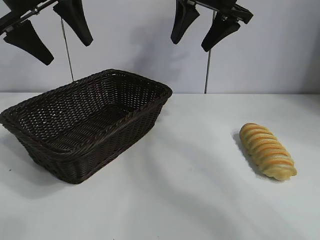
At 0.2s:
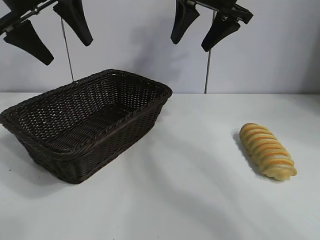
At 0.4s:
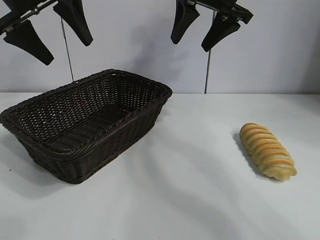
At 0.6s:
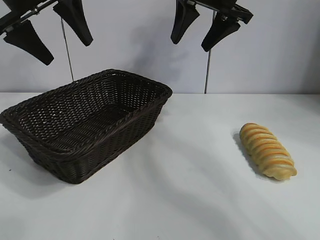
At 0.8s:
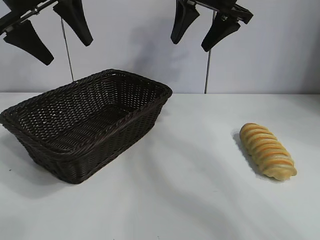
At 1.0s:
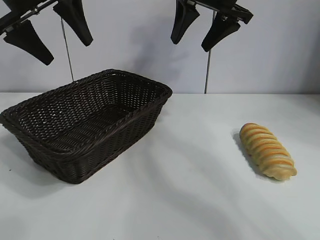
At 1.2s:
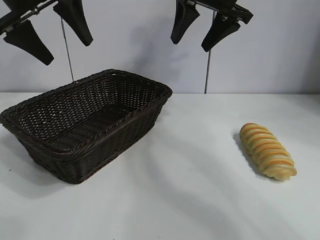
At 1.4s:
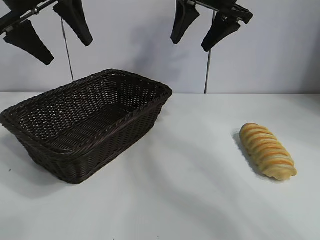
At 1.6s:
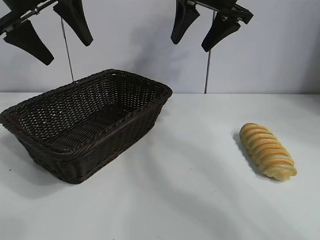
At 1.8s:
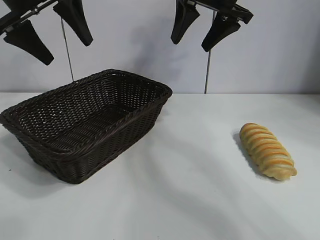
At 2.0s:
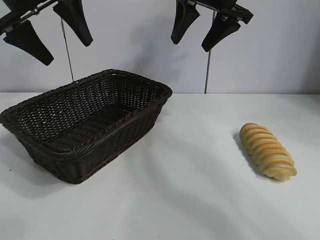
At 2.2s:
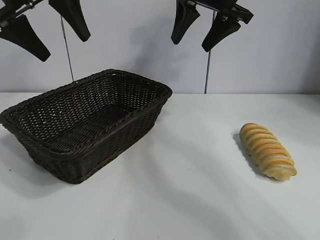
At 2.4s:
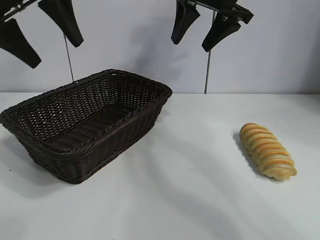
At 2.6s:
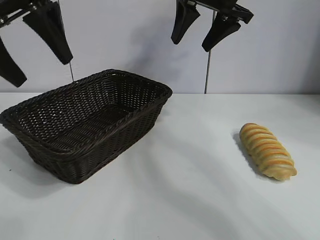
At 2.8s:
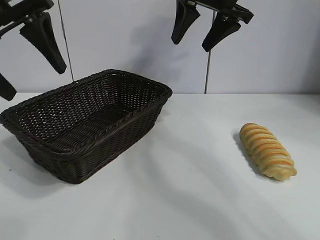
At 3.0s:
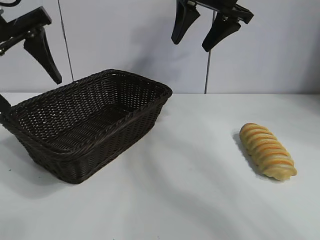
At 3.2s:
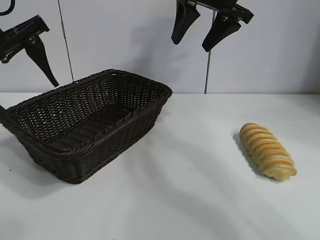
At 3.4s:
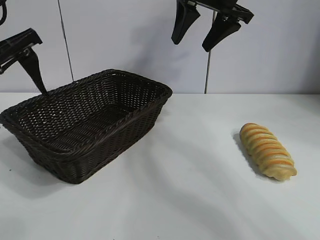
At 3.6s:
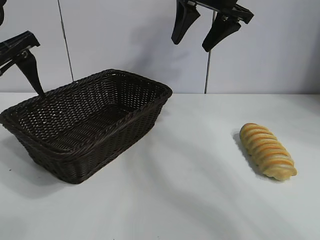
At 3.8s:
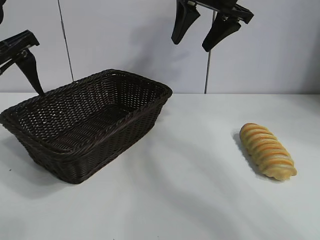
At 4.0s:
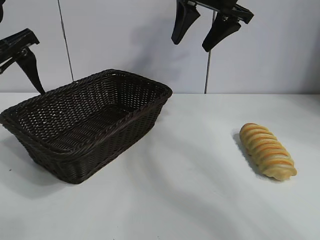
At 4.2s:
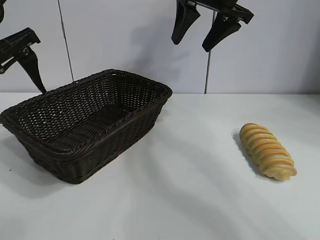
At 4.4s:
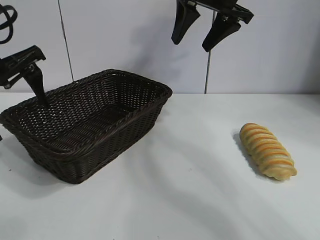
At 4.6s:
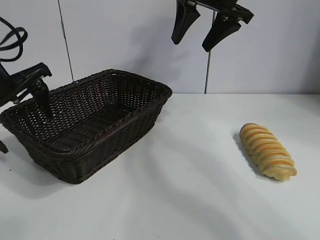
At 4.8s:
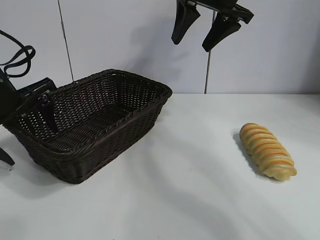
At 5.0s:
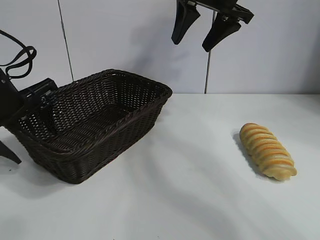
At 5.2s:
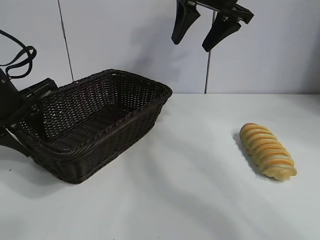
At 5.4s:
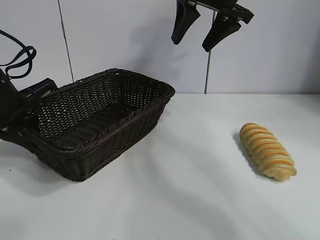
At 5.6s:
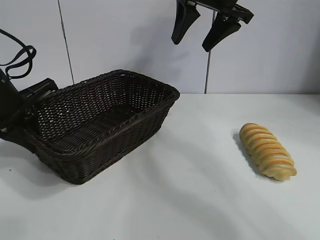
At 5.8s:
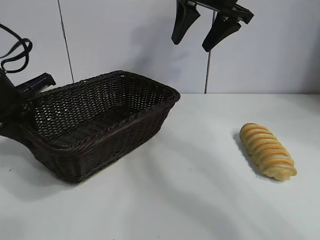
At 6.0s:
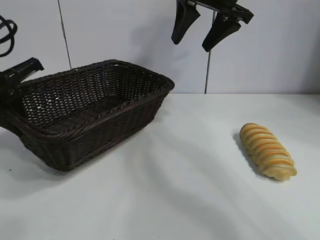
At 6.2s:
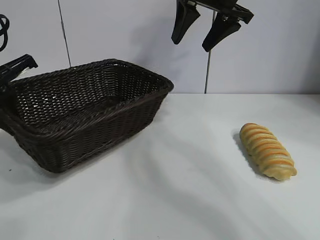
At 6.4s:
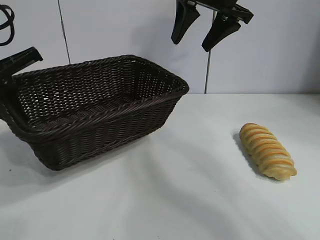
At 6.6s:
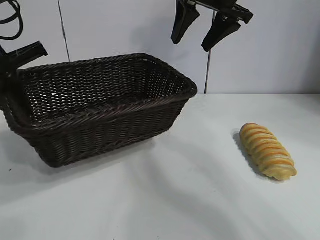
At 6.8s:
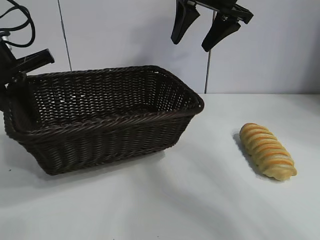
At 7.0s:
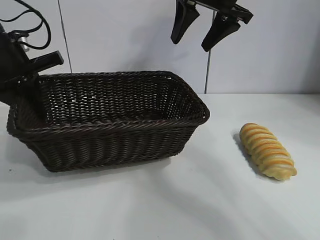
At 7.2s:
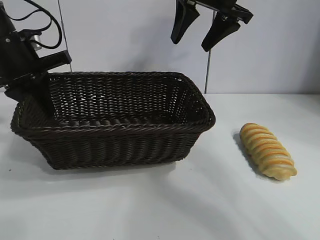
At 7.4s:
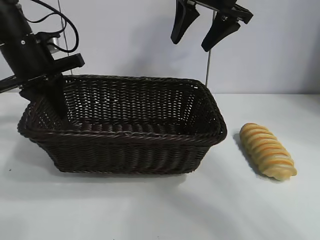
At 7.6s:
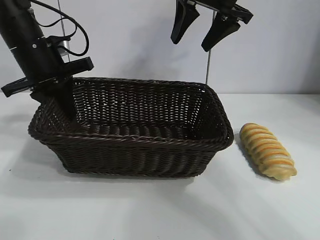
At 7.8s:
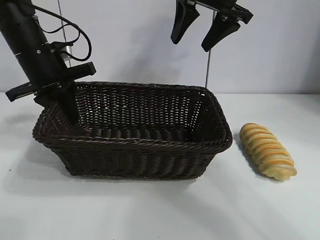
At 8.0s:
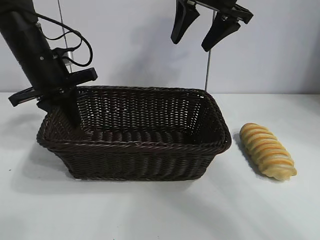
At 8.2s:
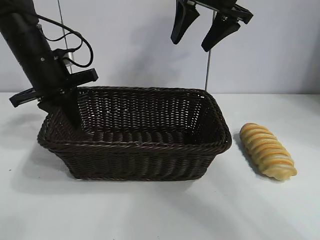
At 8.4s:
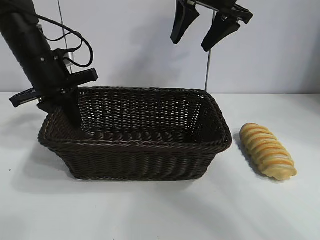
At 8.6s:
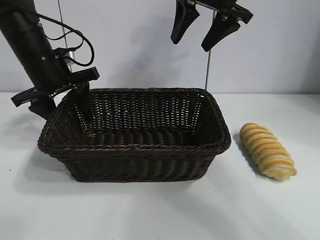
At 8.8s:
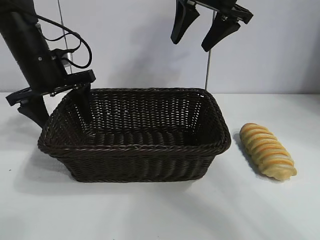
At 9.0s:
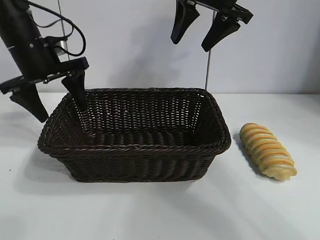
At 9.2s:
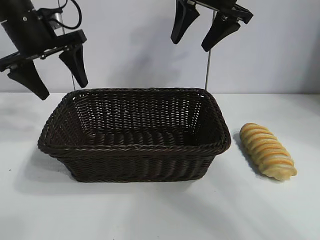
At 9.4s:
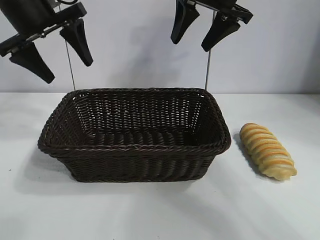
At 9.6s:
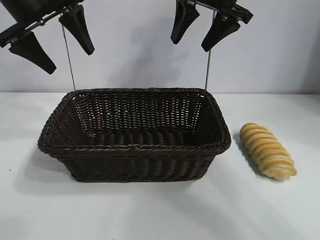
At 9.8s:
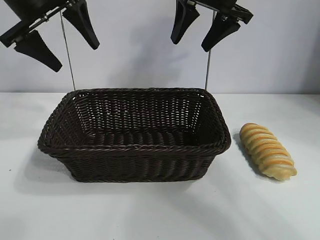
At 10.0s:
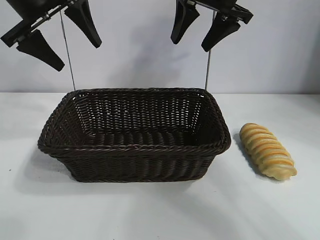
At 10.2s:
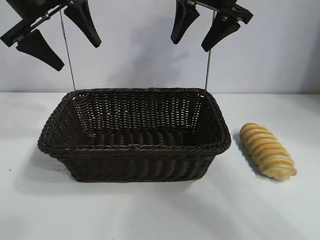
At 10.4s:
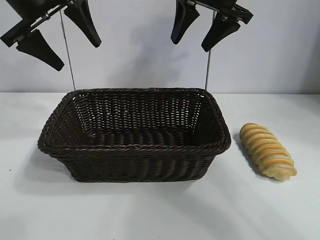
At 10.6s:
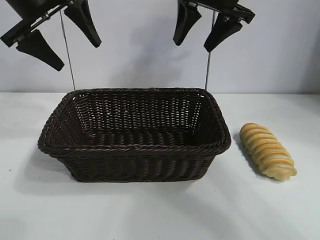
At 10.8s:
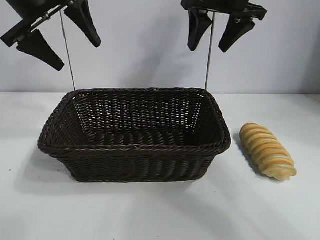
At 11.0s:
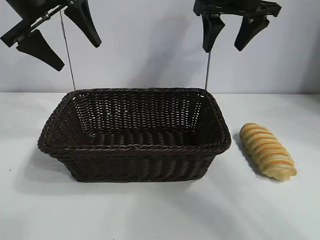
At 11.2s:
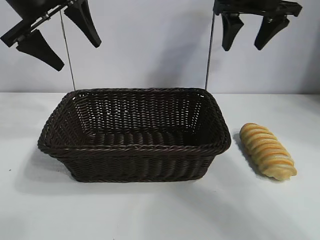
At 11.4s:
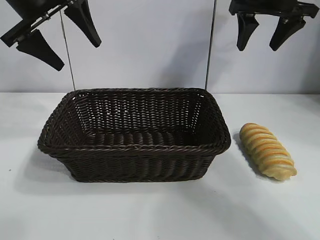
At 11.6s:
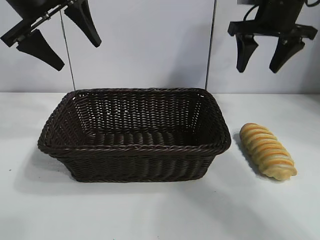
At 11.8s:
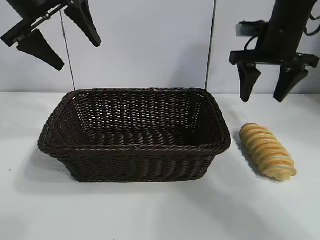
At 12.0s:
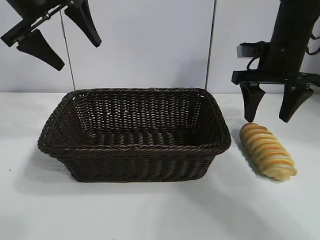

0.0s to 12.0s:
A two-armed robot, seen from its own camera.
Task of the whole recording: pick up the long bread and put it into the basket.
Step, 2.2s to 5.4s: Grasp the basket with the left gripper.
Step, 5.6s to 8.6s: Place the basket in the center of the table with the left gripper.

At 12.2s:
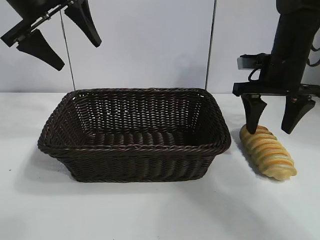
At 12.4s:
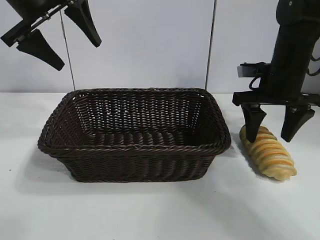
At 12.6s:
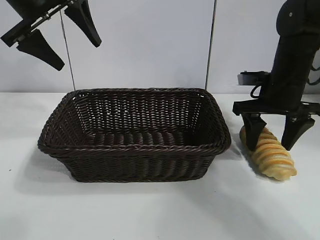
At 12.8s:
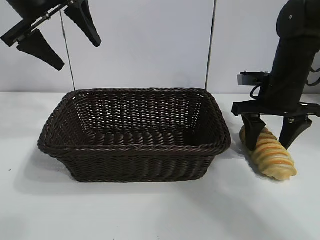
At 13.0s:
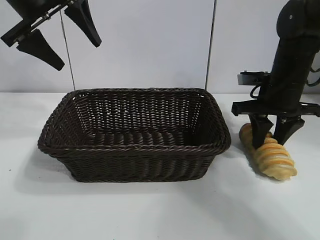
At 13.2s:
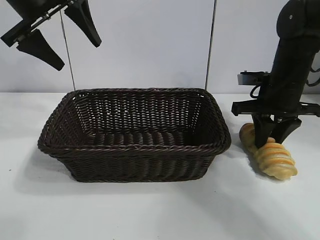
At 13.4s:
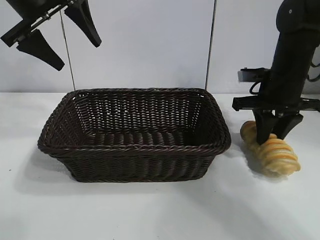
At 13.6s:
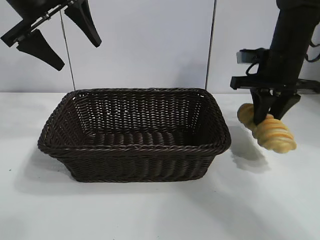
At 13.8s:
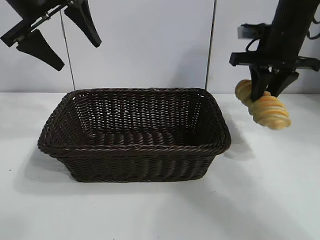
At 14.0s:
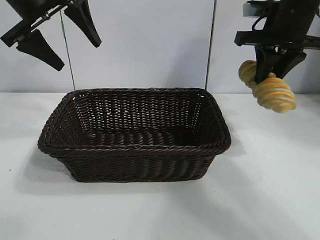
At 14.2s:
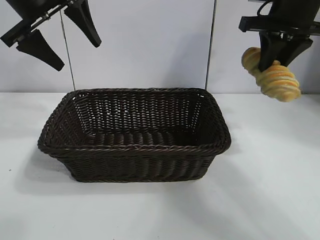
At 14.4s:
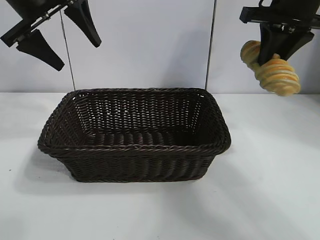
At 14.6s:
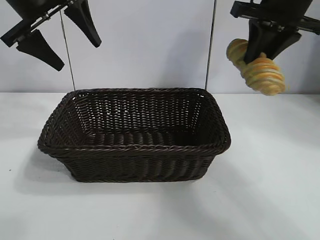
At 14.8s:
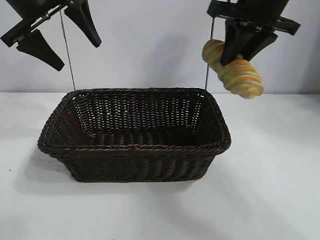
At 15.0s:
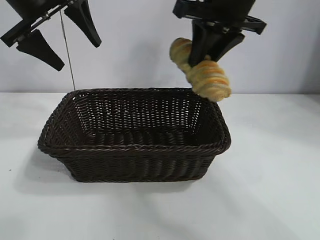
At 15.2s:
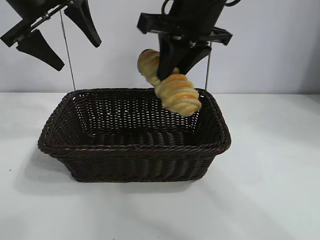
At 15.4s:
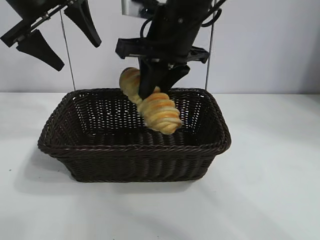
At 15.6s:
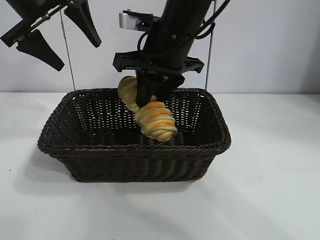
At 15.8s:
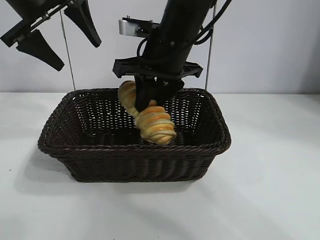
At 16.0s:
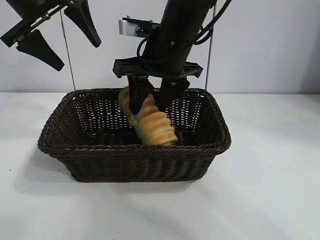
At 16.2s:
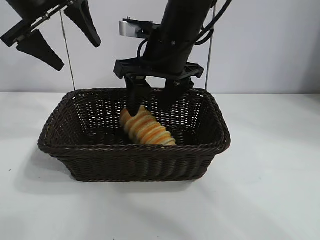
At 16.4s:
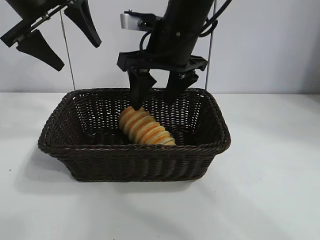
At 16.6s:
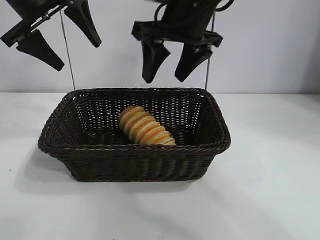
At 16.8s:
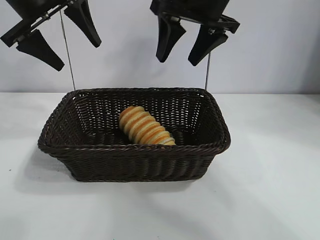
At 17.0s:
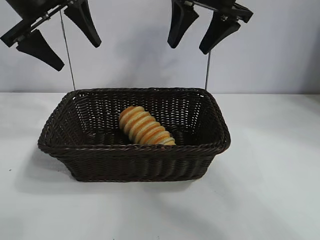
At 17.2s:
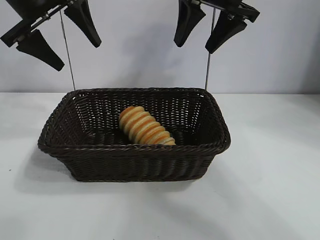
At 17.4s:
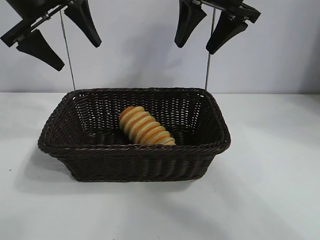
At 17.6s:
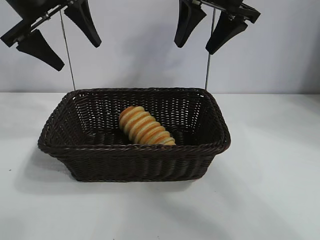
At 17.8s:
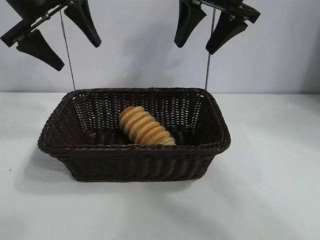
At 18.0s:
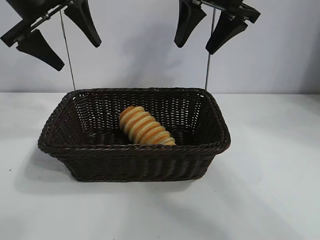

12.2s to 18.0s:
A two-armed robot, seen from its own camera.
Task of the whole recording: pick up the long bread and put it into the basket.
Step, 13.4s to 16.2s: Place the long bread in the basket with right gripper.
